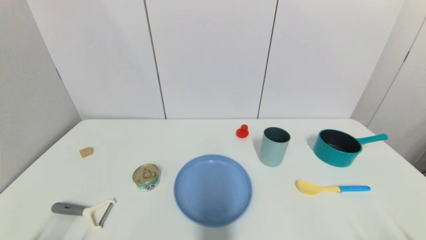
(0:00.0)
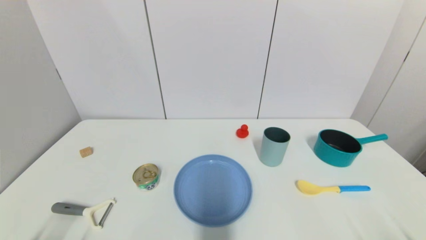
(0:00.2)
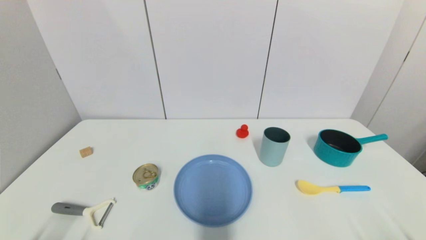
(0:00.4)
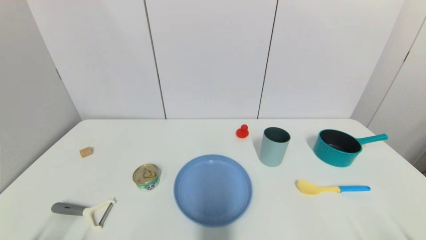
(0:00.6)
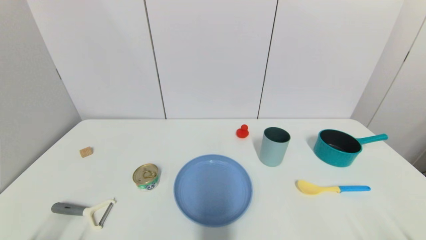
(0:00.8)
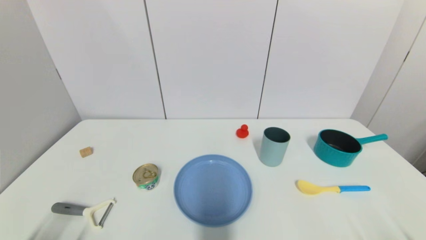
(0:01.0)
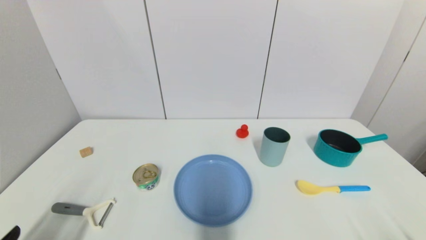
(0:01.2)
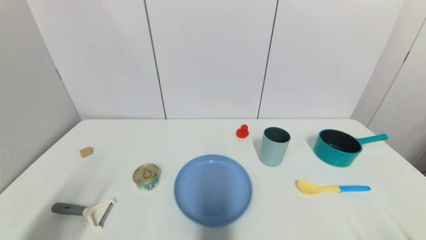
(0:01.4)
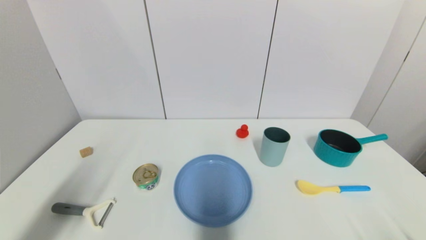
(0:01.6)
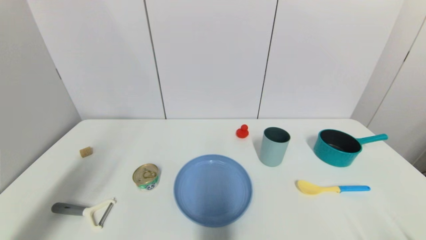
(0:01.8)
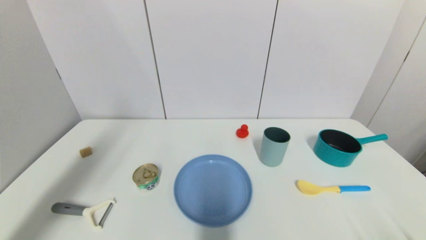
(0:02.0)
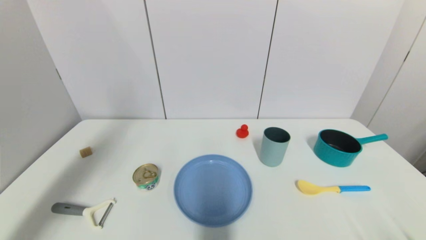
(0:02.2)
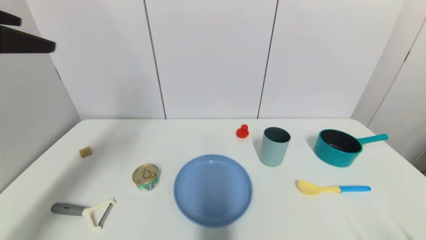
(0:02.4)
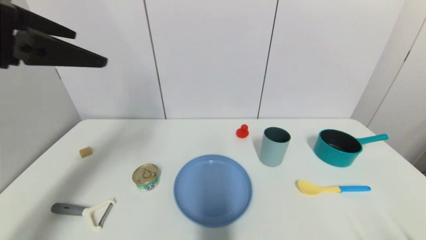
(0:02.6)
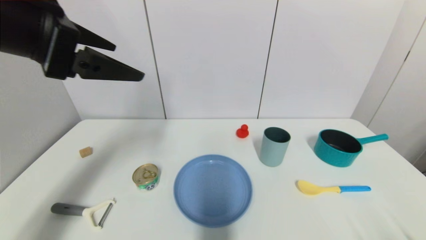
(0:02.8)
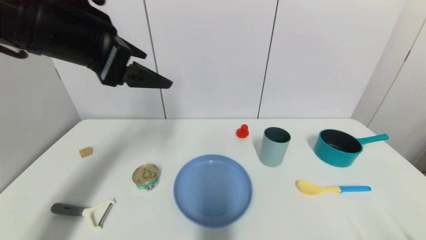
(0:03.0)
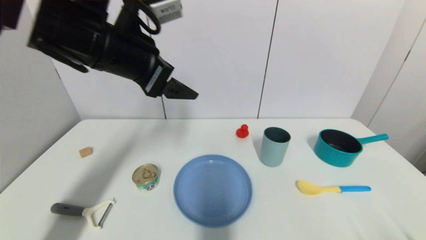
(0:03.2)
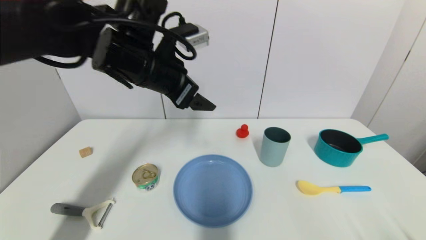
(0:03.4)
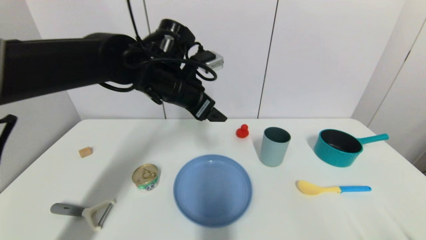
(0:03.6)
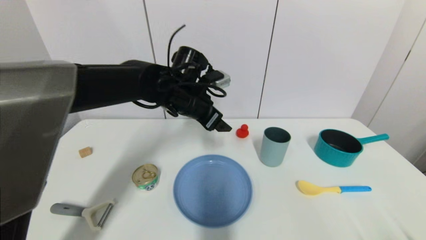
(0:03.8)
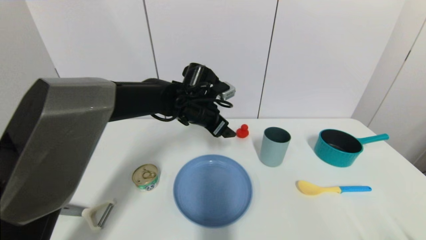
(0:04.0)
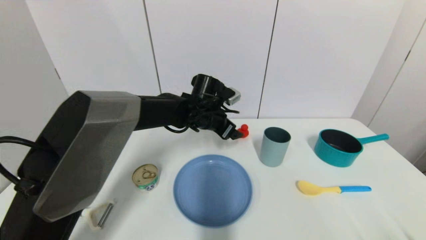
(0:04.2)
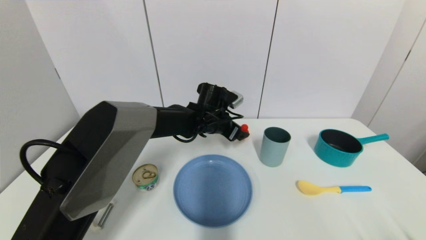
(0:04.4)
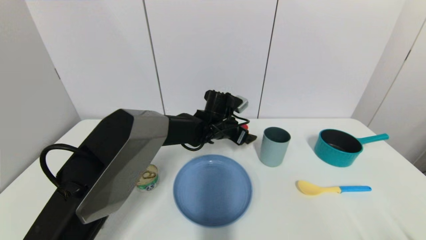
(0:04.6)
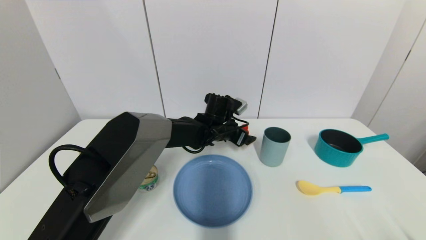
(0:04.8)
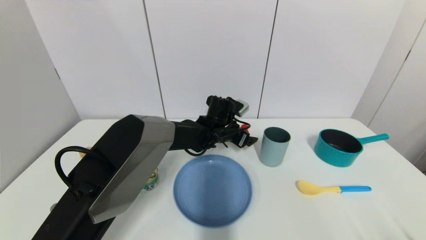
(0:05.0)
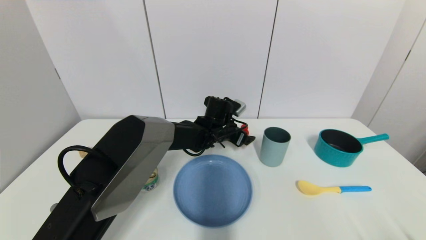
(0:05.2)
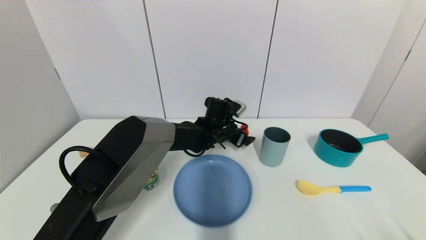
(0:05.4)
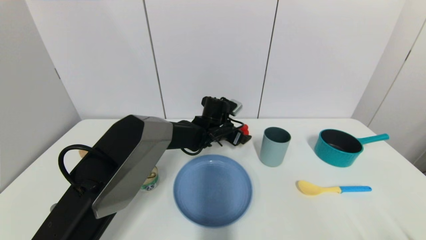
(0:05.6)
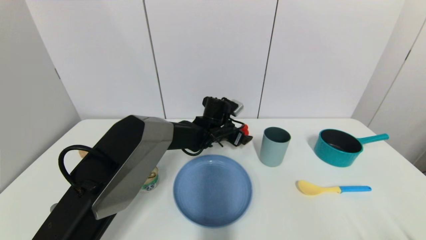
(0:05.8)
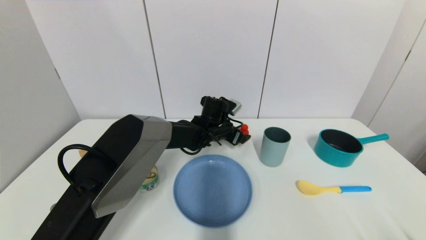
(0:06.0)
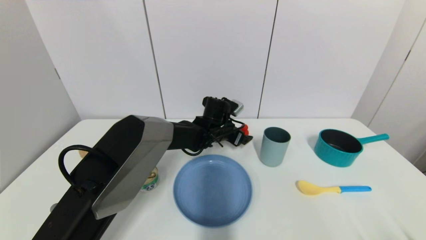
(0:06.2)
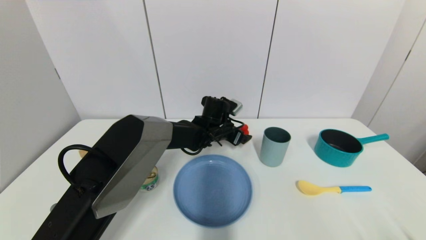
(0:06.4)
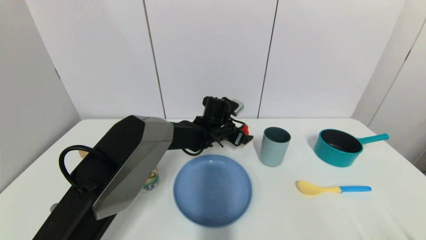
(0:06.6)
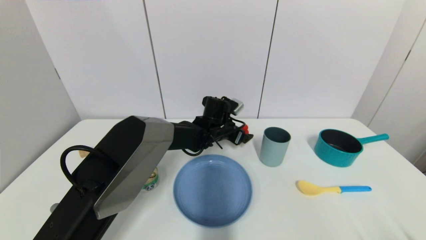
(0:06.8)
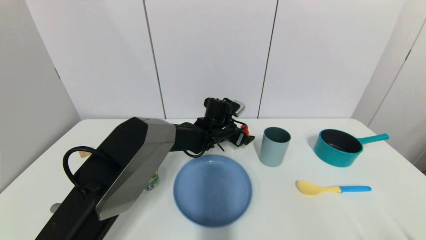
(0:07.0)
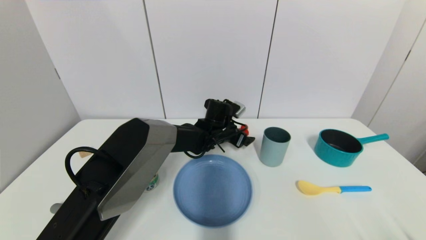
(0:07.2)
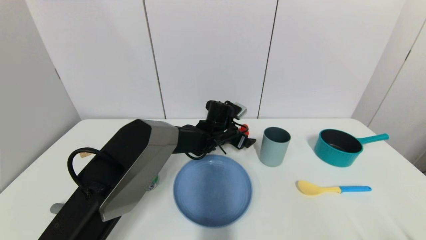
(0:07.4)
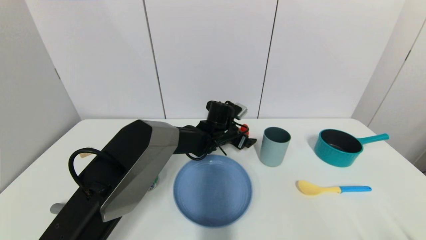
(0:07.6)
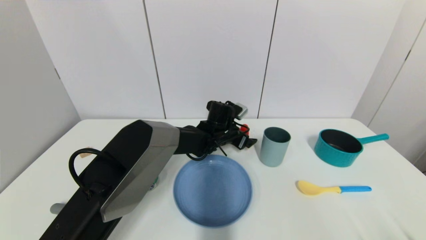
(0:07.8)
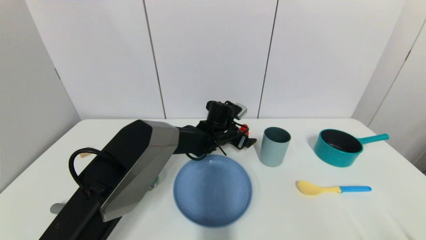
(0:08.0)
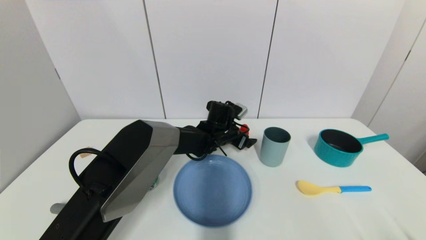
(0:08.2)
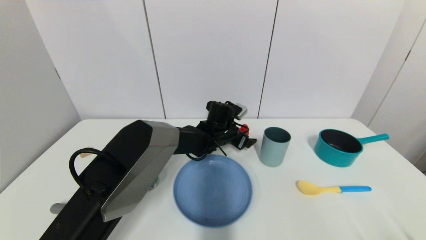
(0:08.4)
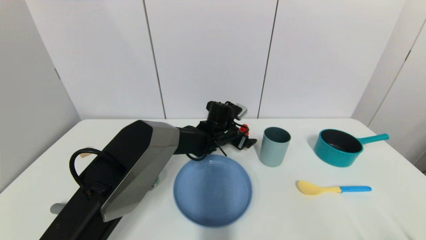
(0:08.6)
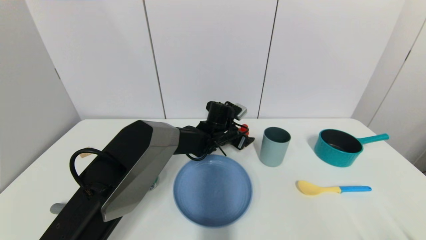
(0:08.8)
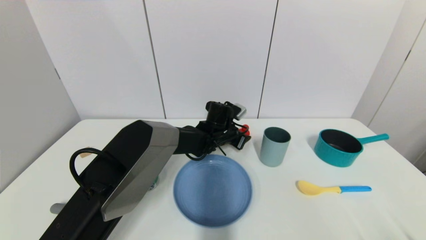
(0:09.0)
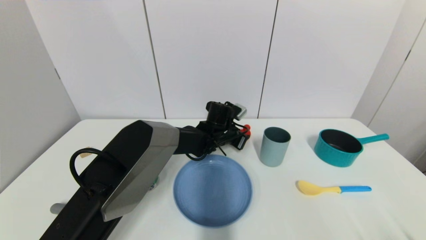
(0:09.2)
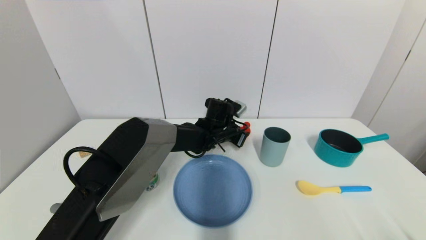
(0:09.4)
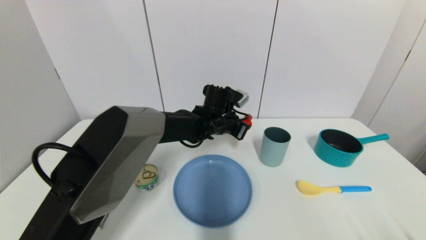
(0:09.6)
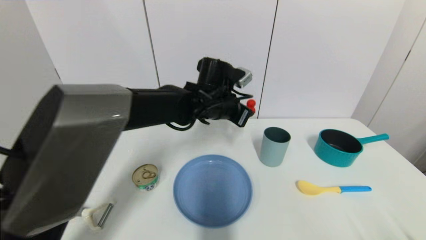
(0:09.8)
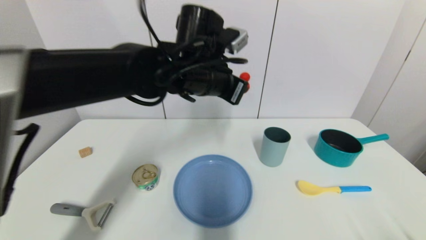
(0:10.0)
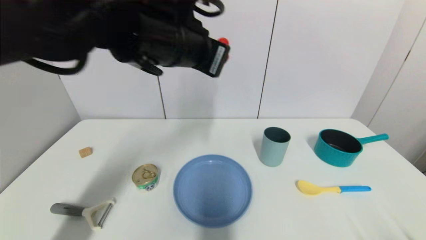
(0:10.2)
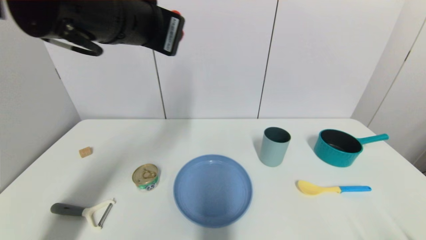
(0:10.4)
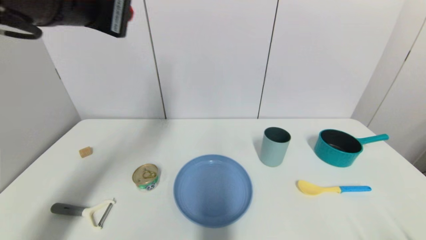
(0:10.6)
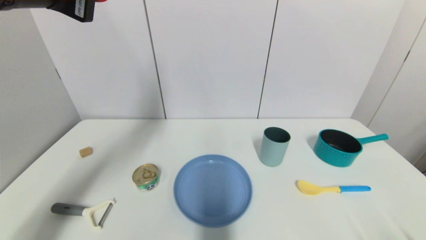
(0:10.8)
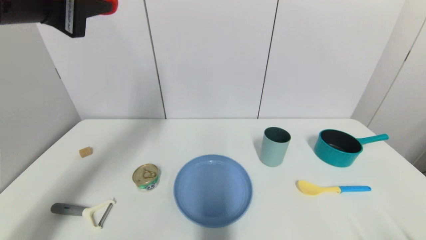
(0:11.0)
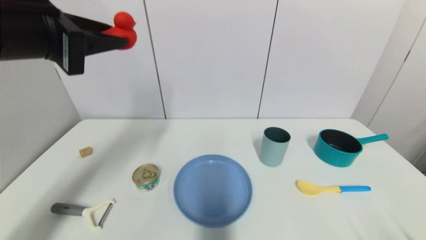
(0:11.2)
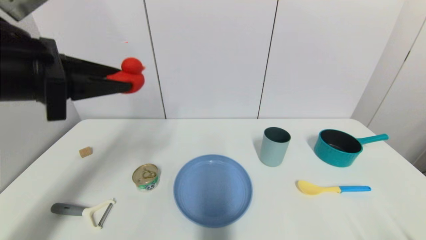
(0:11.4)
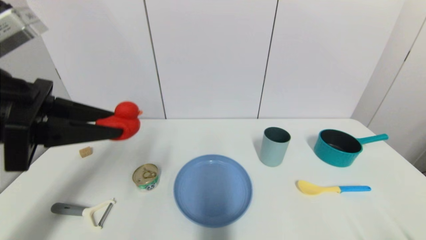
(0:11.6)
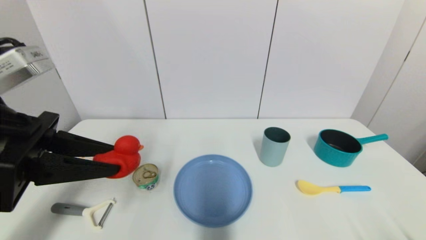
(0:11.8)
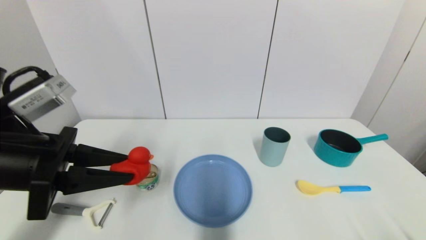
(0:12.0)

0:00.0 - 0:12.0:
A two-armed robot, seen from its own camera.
Step, 0:02.4 - 0:09.6: Grasp the red duck with left gripper.
0:00.0 - 0:01.6: The left gripper is displaced upward by some 20 cm.
0:01.6 - 0:03.0: The left gripper heads forward, to the right and upward, covering roughly 25 cm.
0:03.0 - 0:04.4: The left gripper moves downward, forward and to the right, roughly 35 cm.
0:04.4 - 0:07.6: The grippers make only small movements.
0:07.6 - 0:09.0: The left gripper closes.
0:09.0 - 0:10.4: The left gripper is displaced upward, backward and to the left by some 40 cm.
0:10.4 - 0:12.0: The left gripper heads to the left, downward and backward, covering approximately 20 cm.

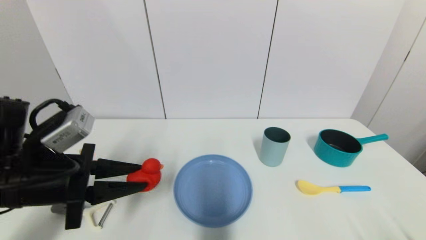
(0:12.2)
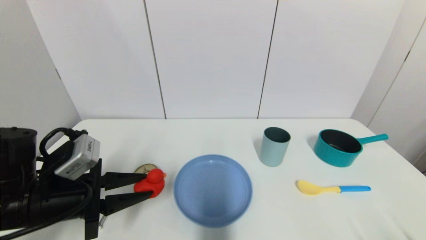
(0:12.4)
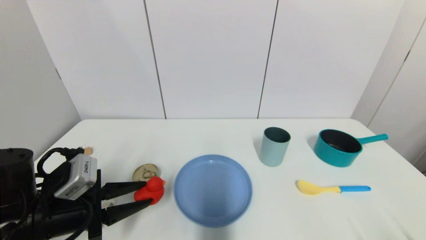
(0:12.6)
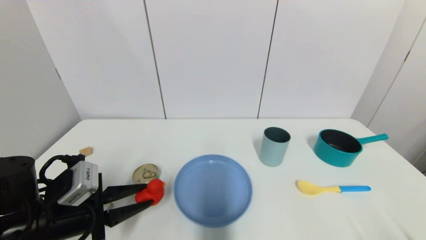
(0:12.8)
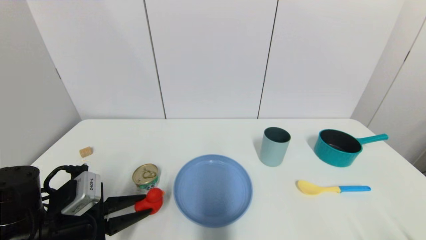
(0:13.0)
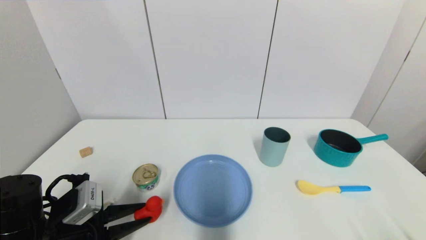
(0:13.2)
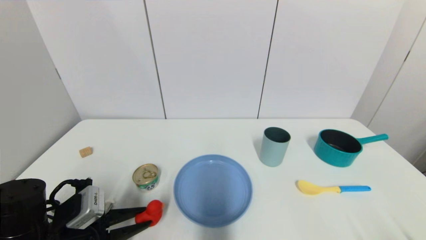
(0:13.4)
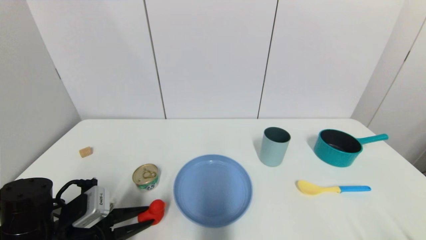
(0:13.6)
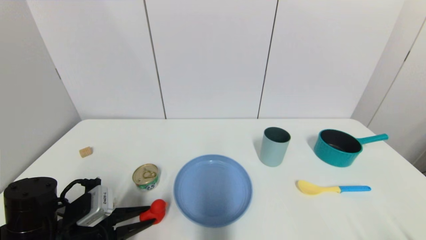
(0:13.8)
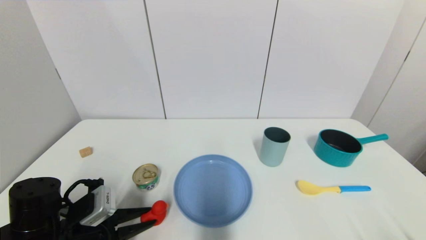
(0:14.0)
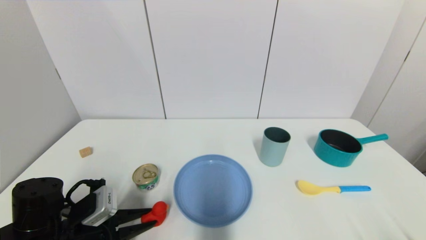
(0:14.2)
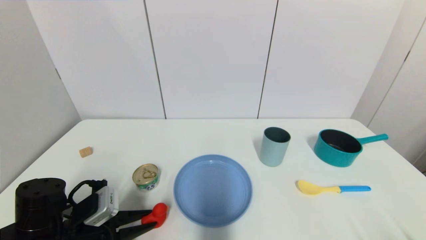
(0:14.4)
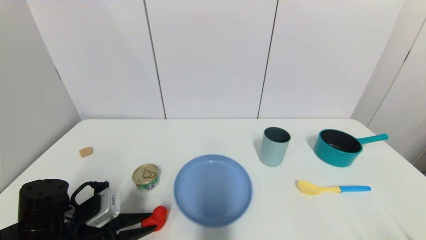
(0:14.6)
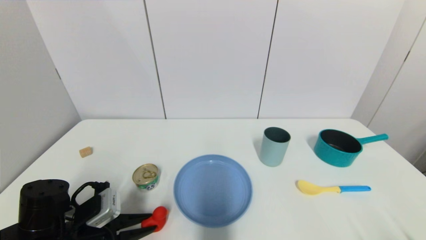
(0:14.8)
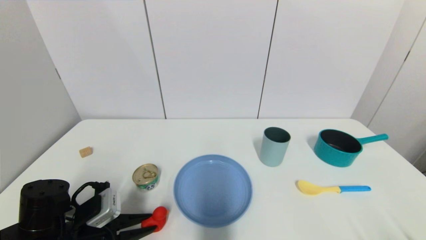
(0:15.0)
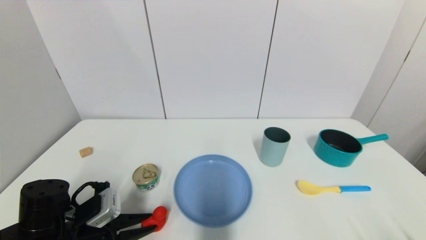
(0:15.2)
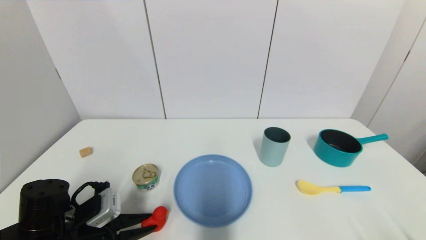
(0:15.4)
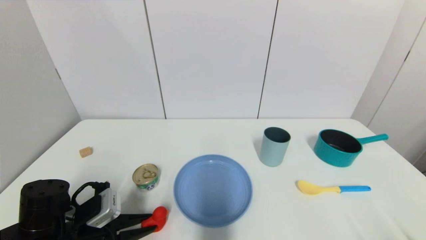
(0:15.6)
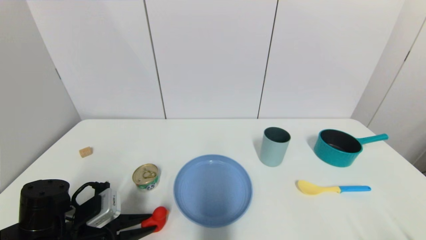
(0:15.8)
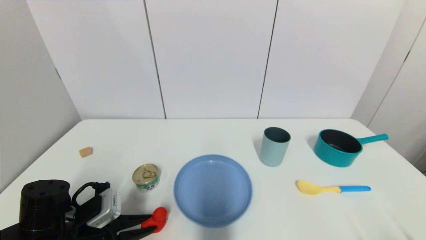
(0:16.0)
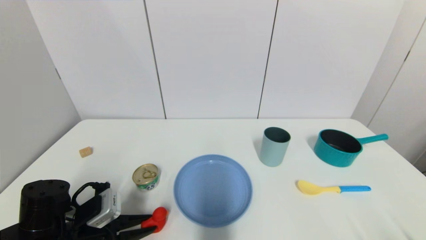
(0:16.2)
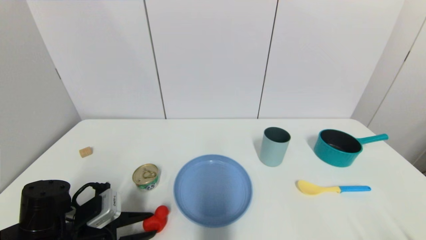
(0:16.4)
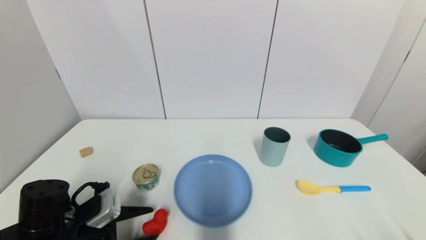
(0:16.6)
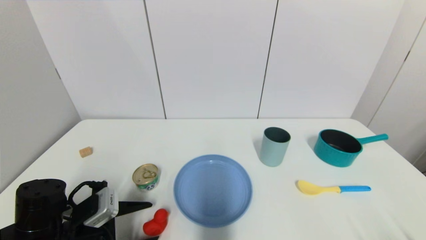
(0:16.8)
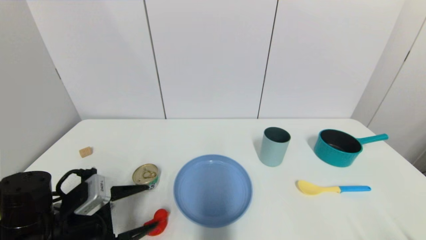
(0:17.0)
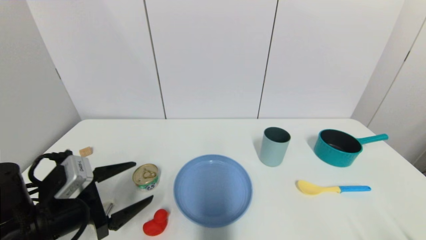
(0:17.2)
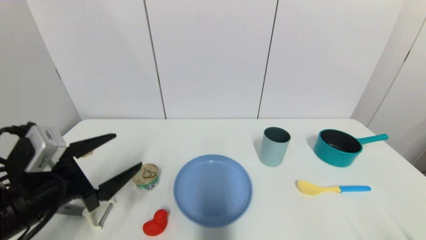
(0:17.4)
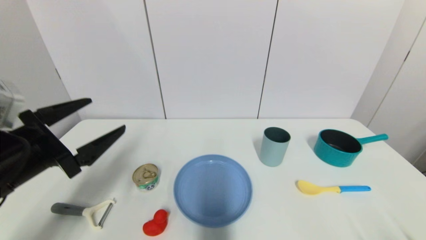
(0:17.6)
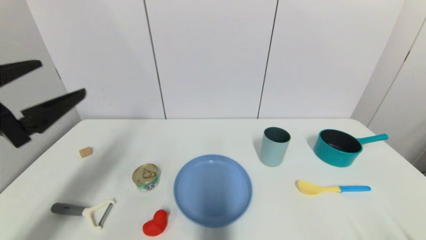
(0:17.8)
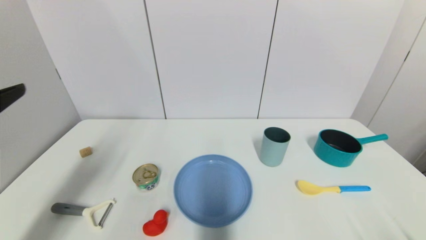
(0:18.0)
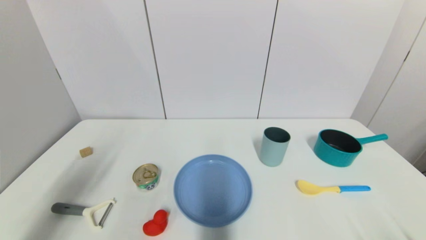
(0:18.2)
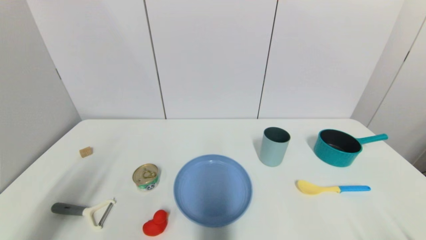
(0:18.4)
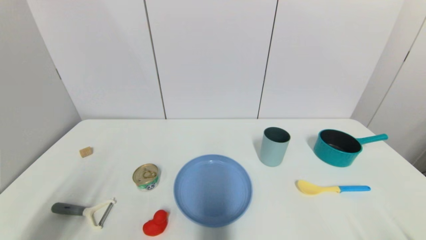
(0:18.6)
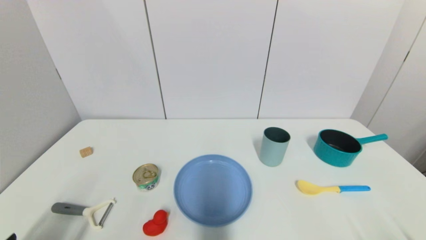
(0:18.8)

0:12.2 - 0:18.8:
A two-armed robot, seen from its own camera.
Step, 0:12.2 - 0:16.8: Place the red duck on the table with left gripper.
0:12.2 - 0:13.8: The left gripper travels downward by about 15 cm.
0:13.8 - 0:15.4: There are only small adjustments of the grippers.
0:15.4 - 0:17.2: The left gripper shifts about 5 cm upward, and opens up.
0:17.2 - 0:18.8: The left gripper goes approximately 15 cm backward, and reaches about 20 cm upward, then returns.
